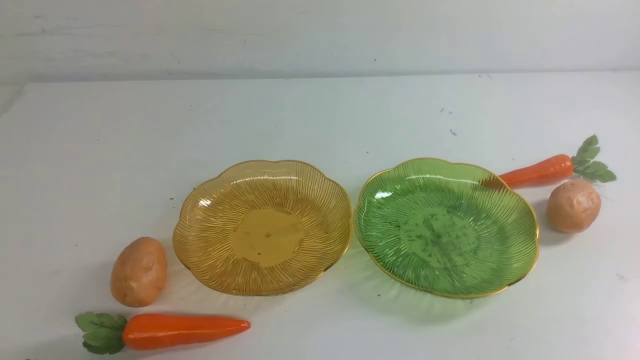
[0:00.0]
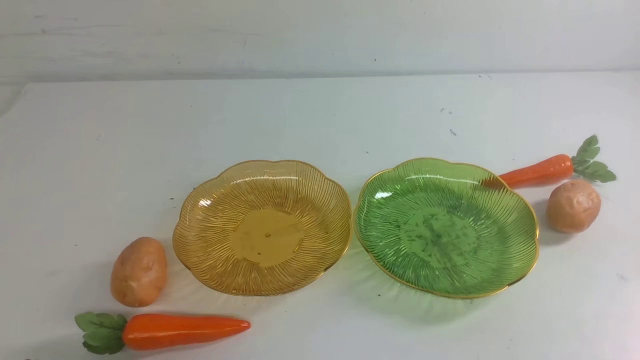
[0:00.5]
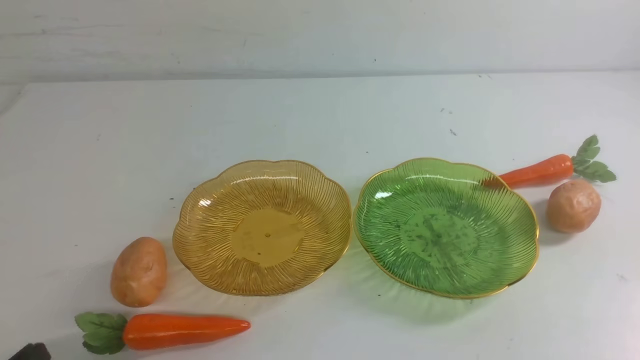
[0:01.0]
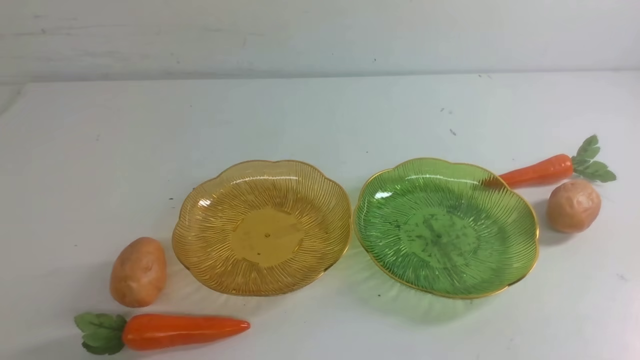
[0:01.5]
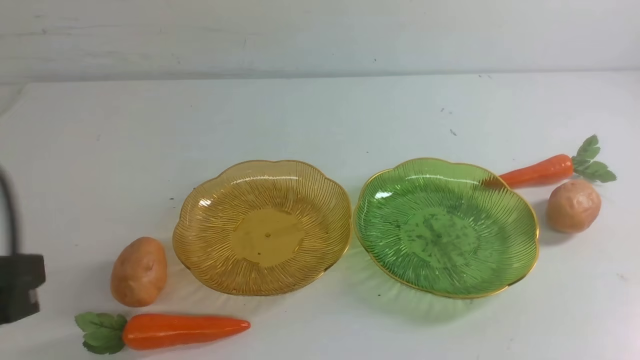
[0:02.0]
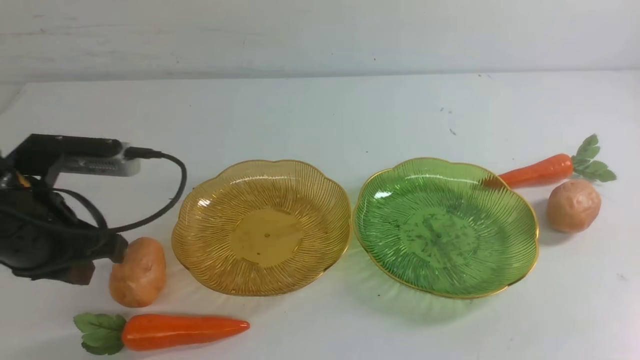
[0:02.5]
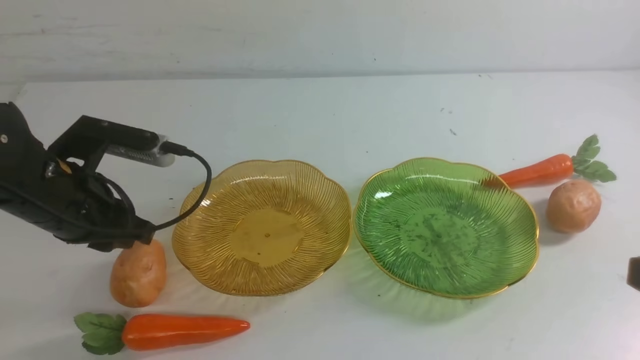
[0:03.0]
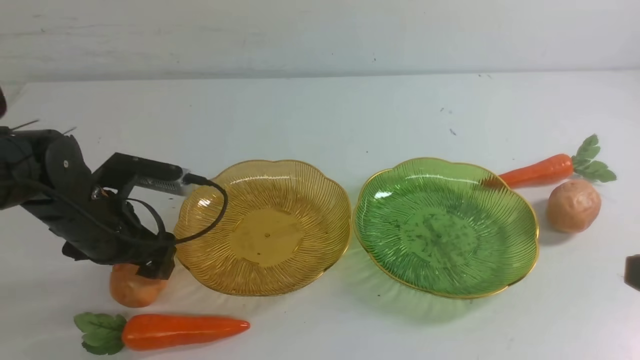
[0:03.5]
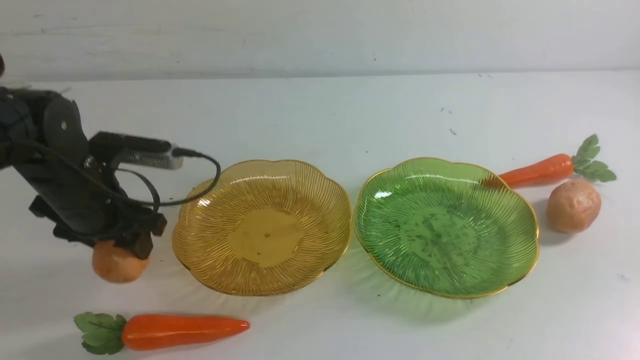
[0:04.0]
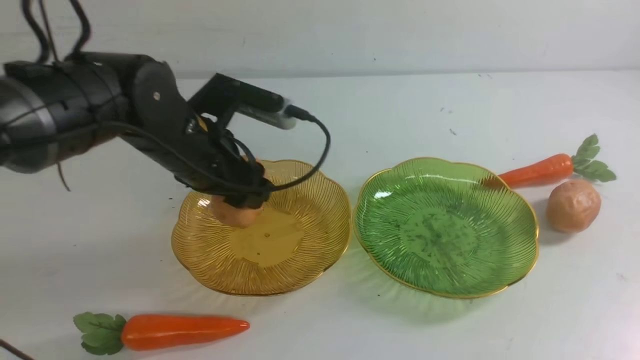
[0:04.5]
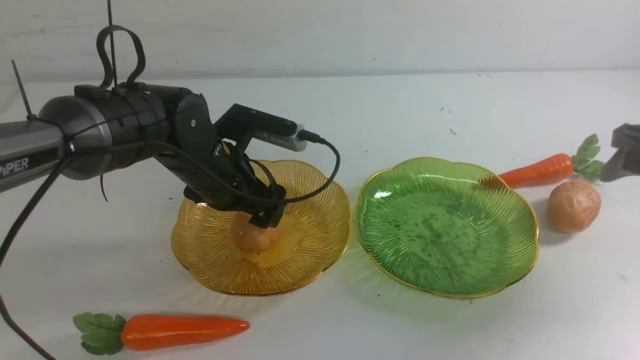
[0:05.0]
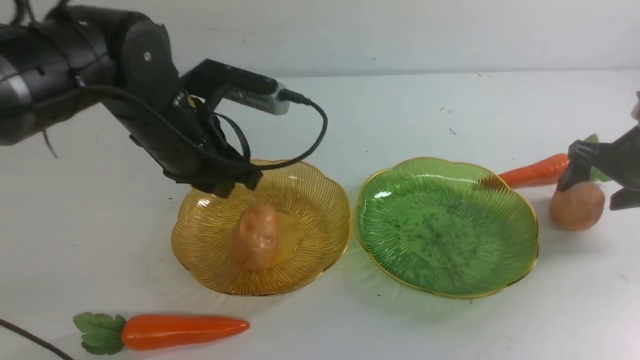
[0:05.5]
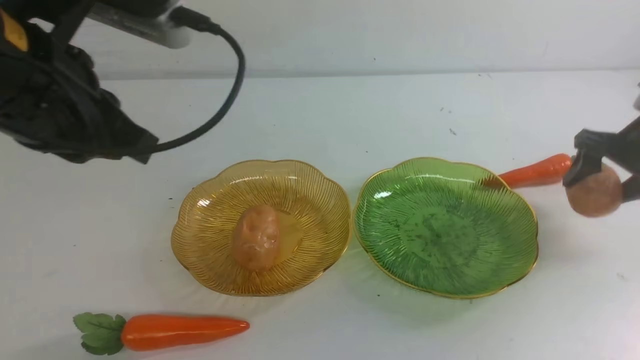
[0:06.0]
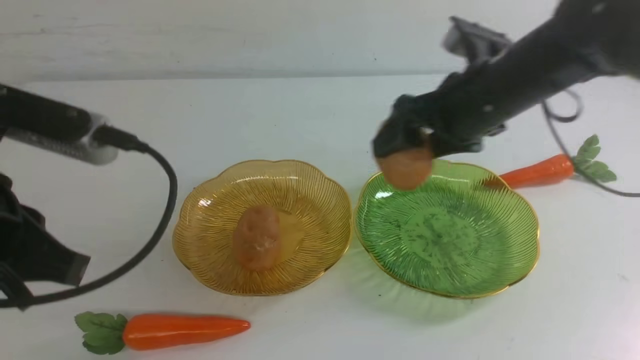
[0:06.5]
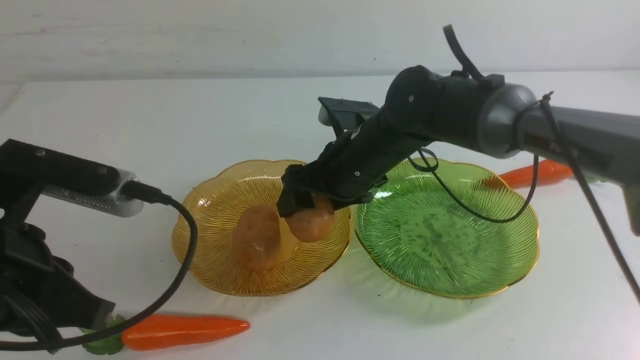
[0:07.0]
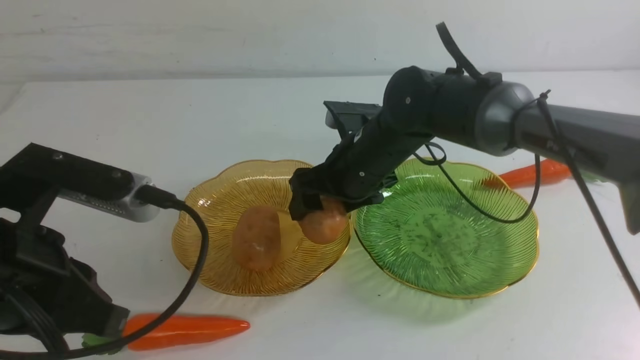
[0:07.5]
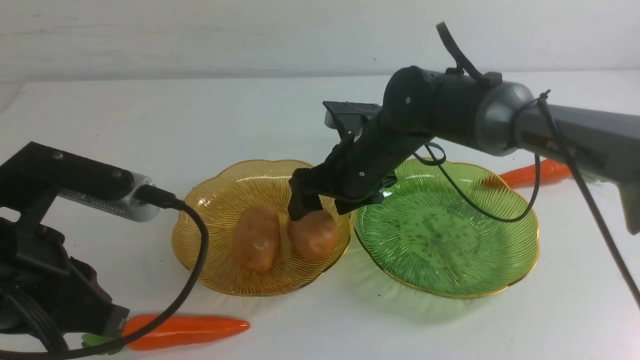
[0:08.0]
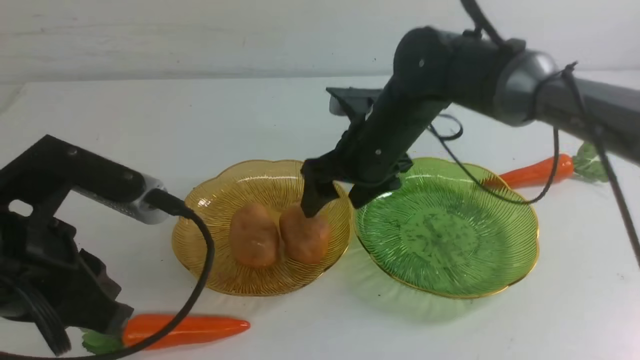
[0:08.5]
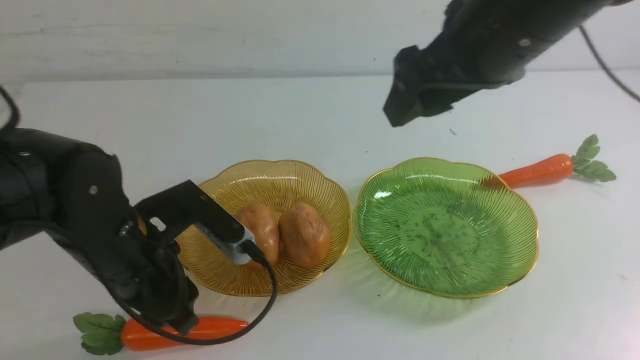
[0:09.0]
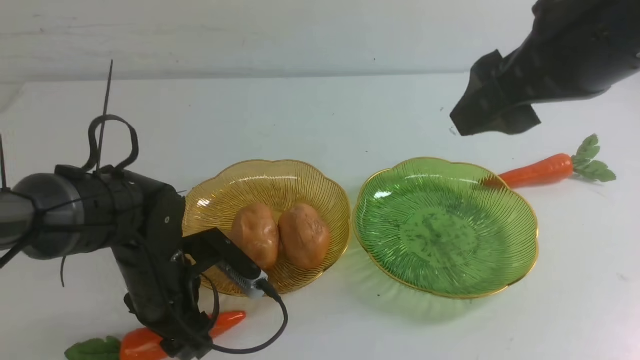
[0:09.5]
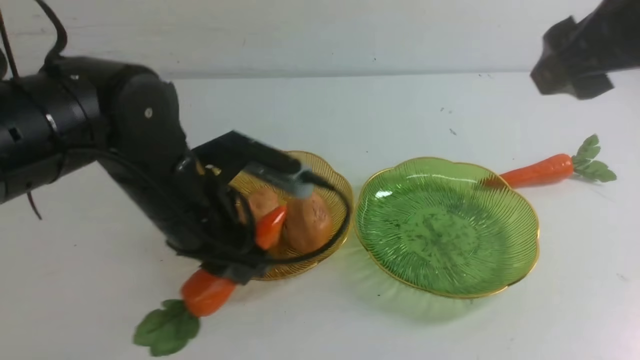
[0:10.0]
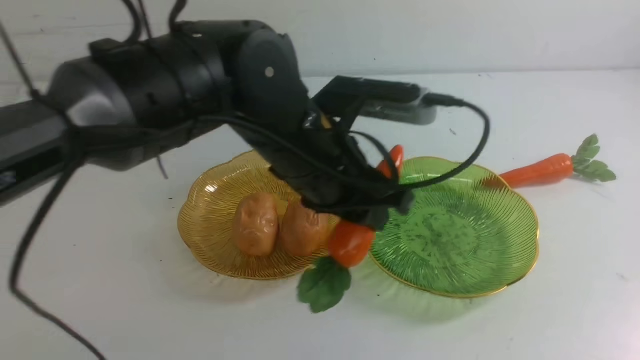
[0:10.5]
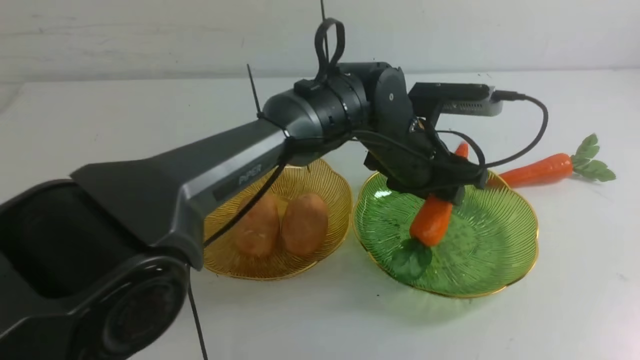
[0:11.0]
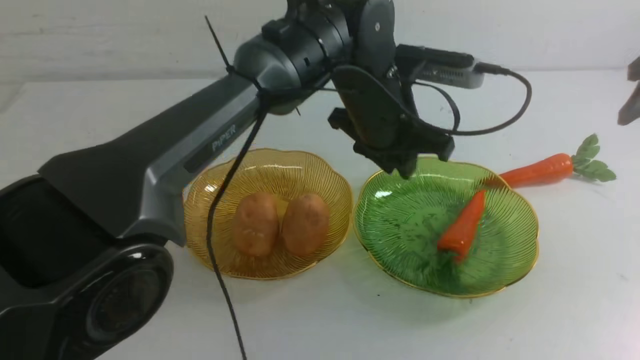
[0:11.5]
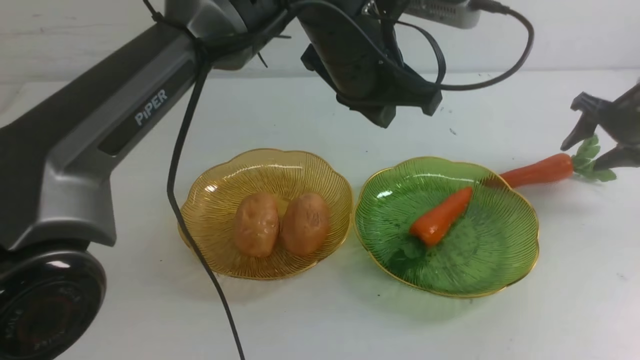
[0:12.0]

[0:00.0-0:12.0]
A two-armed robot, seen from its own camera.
Step, 0:00.0 to 0:04.5: Grab a potato with your left arm and put it on the left plate.
Step, 0:05.0 to 0:08.0: Grab a potato with your right arm and put it on the left plate.
Step, 0:08.5 to 0:11.0: use the left arm to grab a carrot and put it into the right plate.
0:00.0 to 0:02.0: The left gripper moves upward and forward, approximately 20 cm.
0:02.0 to 0:04.0: The left gripper goes approximately 20 cm forward and downward, and opens.
0:04.0 to 0:06.0: The left gripper travels backward and upward by about 20 cm, and closes up, while the right gripper travels forward and to the left by about 30 cm, and opens up.
0:06.0 to 0:08.0: The right gripper heads to the left and downward, covering some 15 cm.
0:08.0 to 0:10.0: The left gripper moves forward and to the right, roughly 15 cm, moves some 15 cm downward and comes back, and opens and closes again. Meanwhile the right gripper goes roughly 30 cm upward, to the right and backward.
0:10.0 to 0:12.0: The right gripper heads downward, forward and to the right, covering roughly 40 cm. The left gripper goes approximately 15 cm to the right, forward and upward, and closes up.

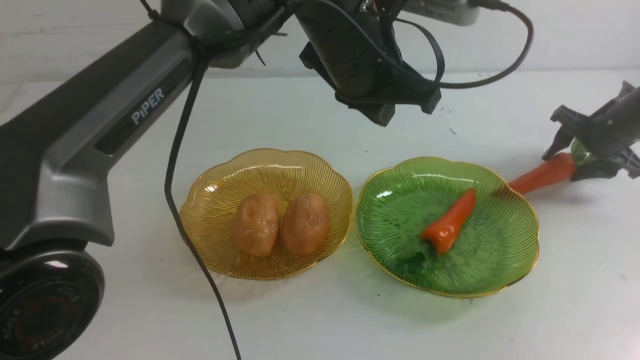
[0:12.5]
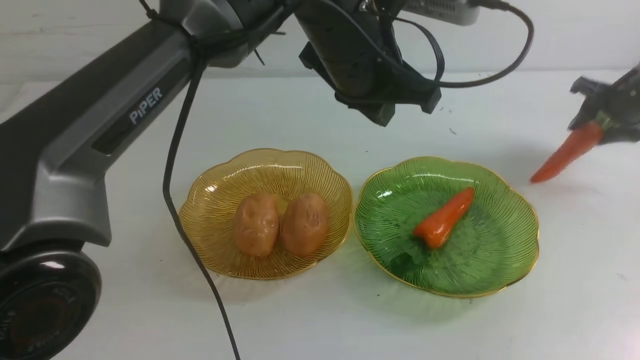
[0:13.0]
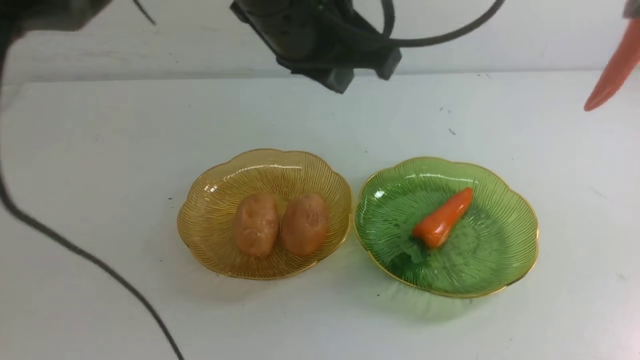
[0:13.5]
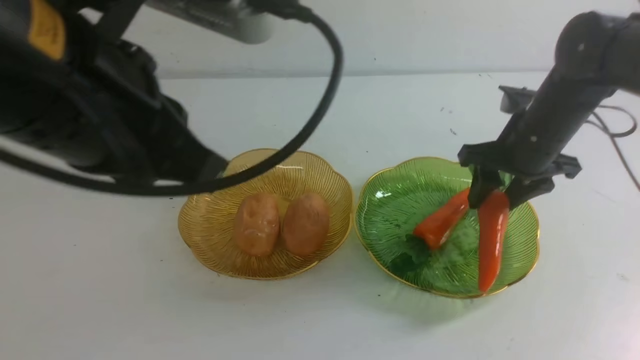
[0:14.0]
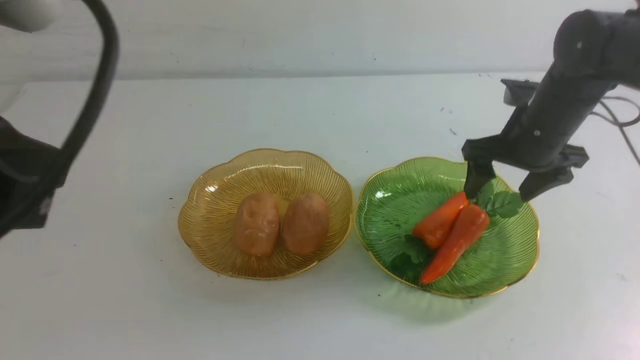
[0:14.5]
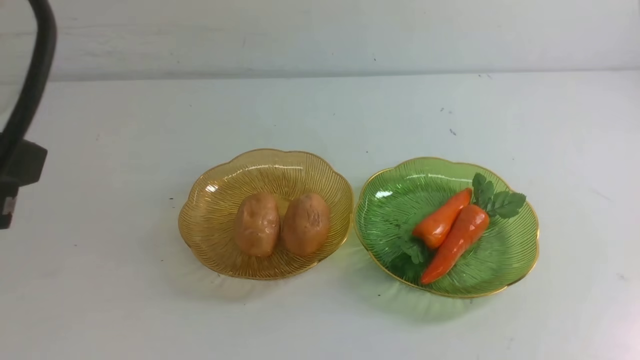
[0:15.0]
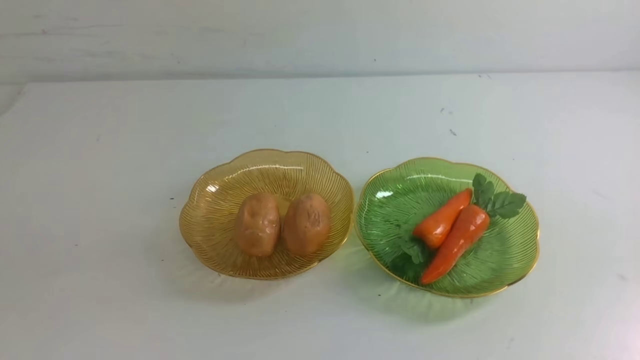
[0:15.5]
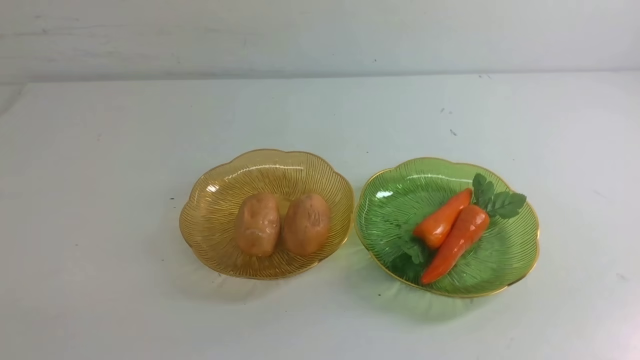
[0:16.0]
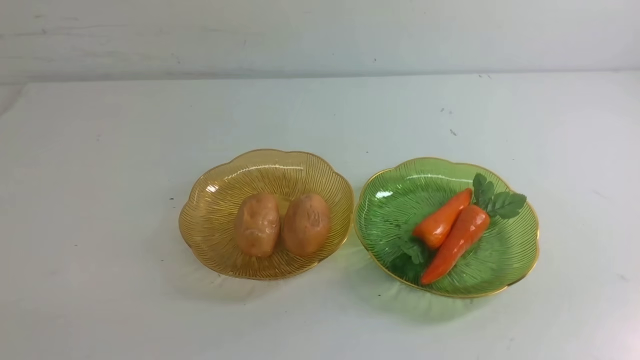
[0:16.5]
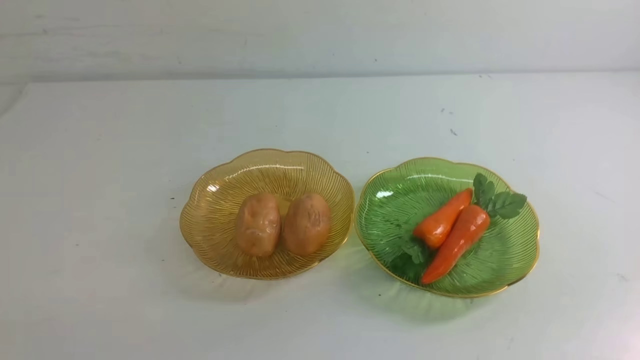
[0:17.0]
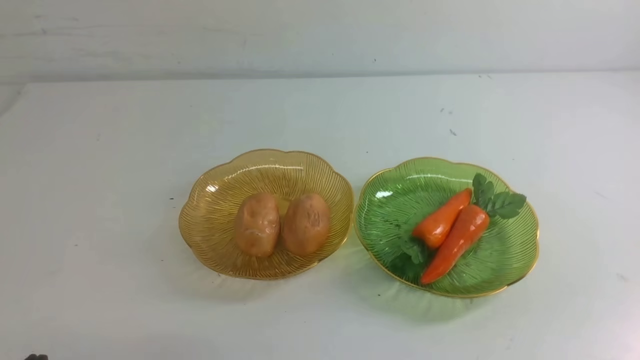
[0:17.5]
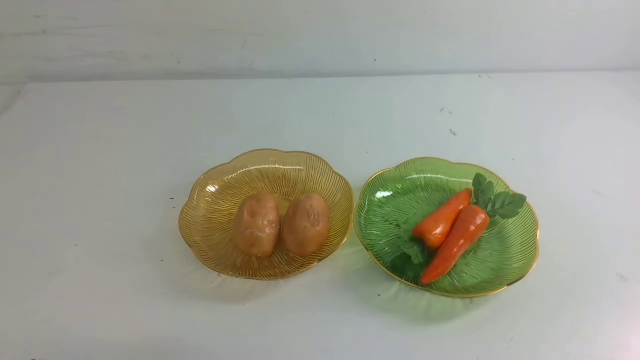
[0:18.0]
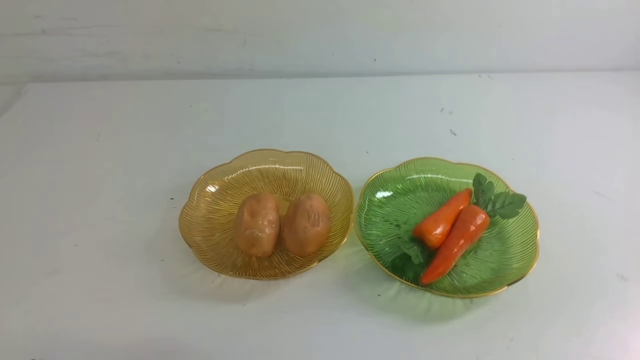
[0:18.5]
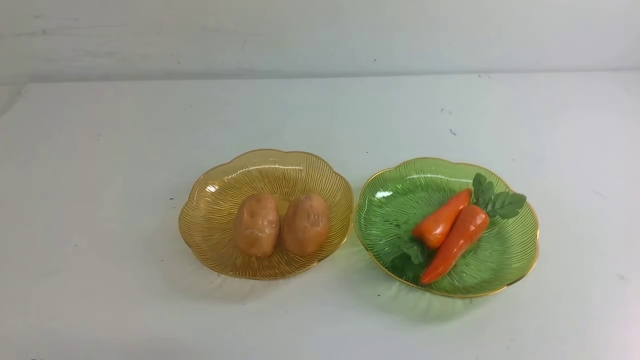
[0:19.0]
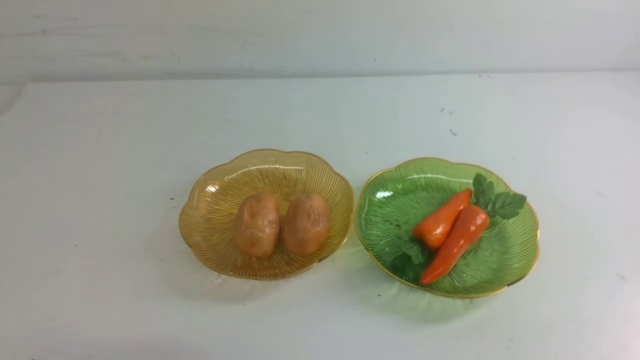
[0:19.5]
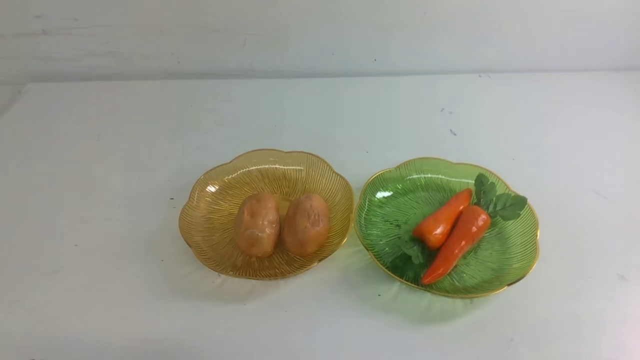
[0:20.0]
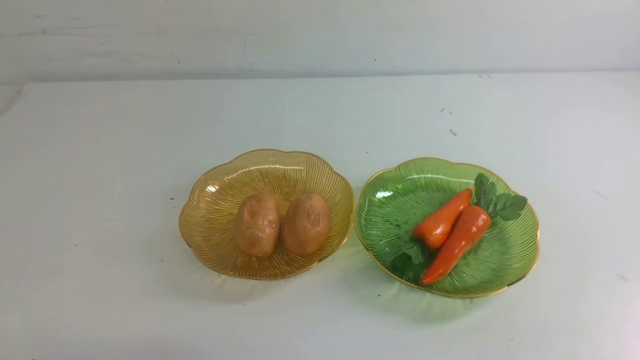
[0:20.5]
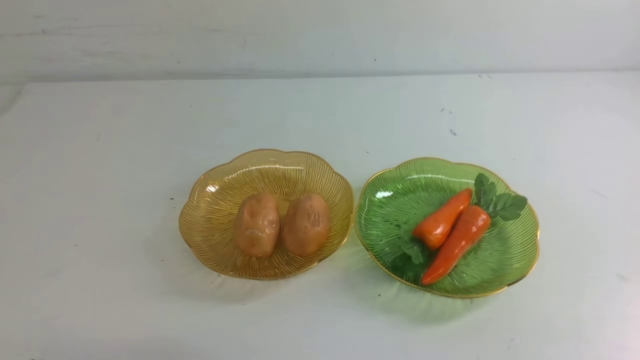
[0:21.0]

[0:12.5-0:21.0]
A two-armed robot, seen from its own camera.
Step, 0:12.5 to 0:14.0: use the right arm to grab a carrot and put it into the right plate.
0:12.5 to 0:14.5: The right gripper travels upward, to the left and backward by some 25 cm. The left gripper moves backward and to the left, some 30 cm.
0:14.5 to 0:16.5: The right gripper travels backward by roughly 35 cm, and closes. Meanwhile the left gripper moves downward, backward and to the left, roughly 20 cm.
